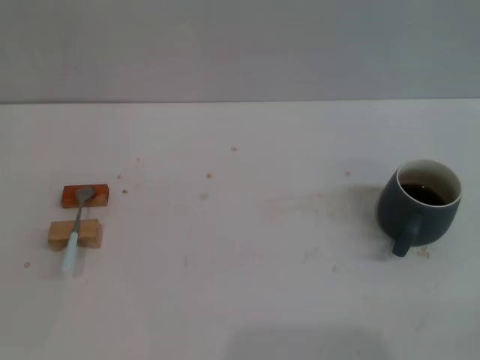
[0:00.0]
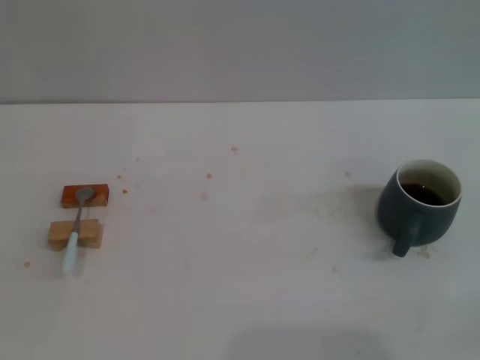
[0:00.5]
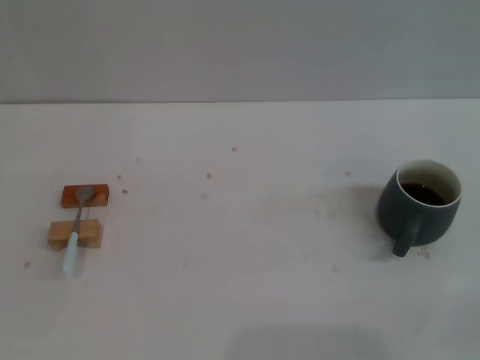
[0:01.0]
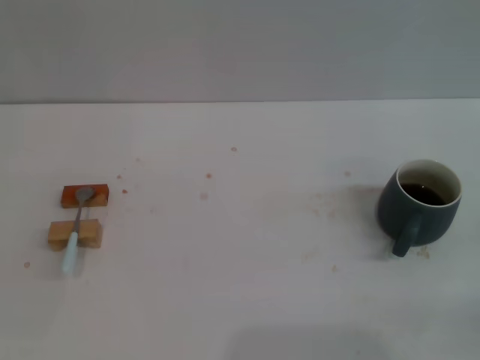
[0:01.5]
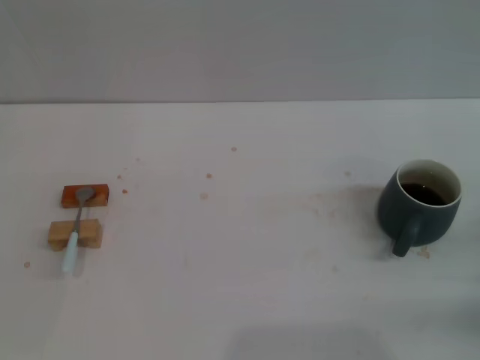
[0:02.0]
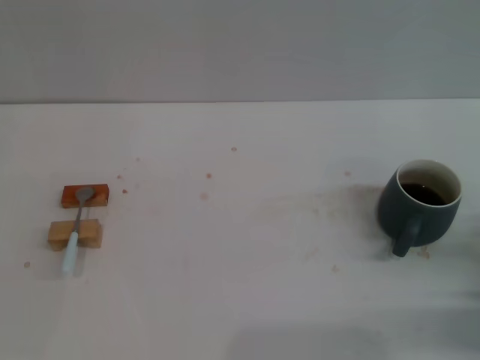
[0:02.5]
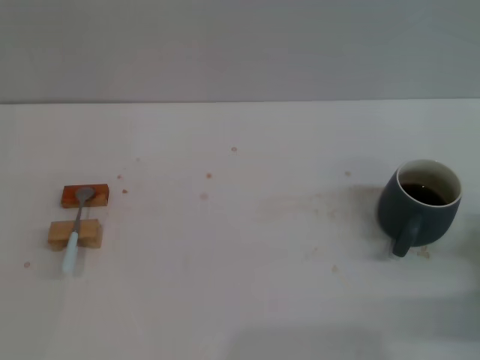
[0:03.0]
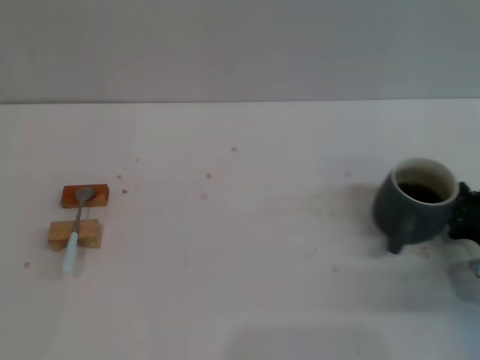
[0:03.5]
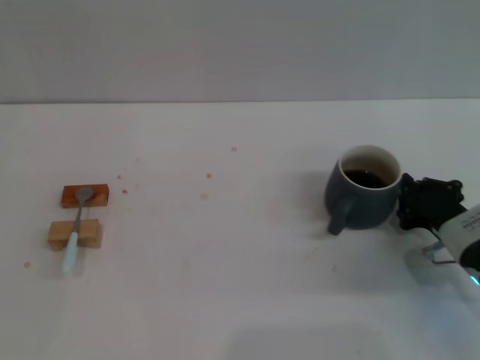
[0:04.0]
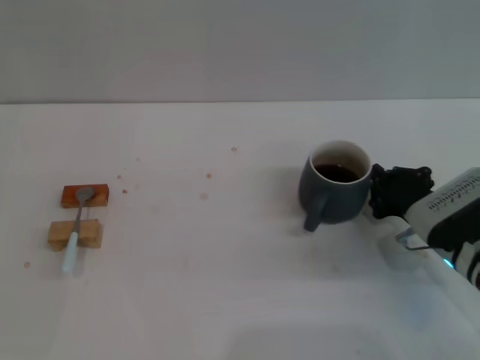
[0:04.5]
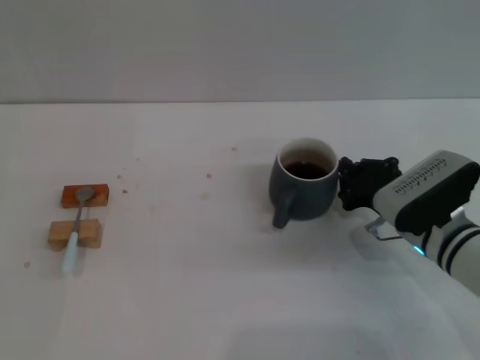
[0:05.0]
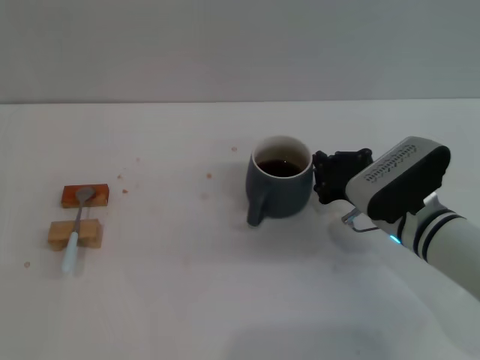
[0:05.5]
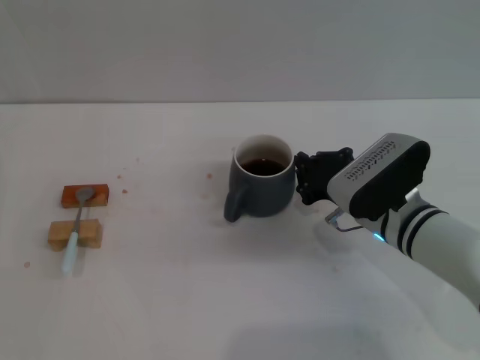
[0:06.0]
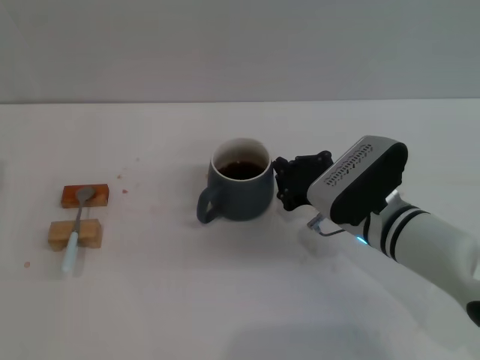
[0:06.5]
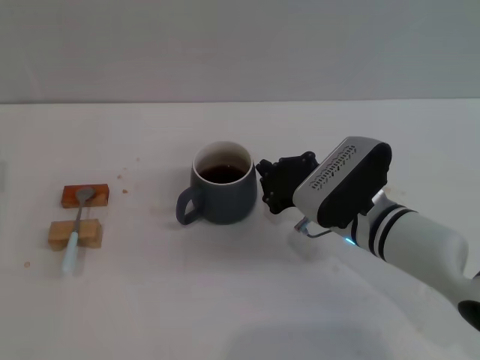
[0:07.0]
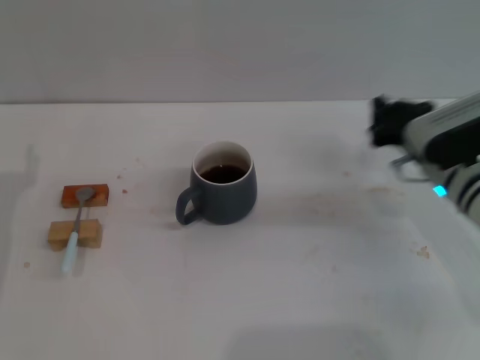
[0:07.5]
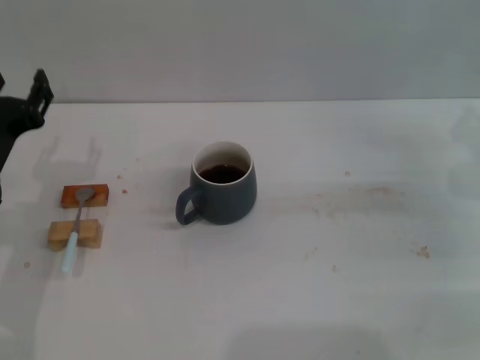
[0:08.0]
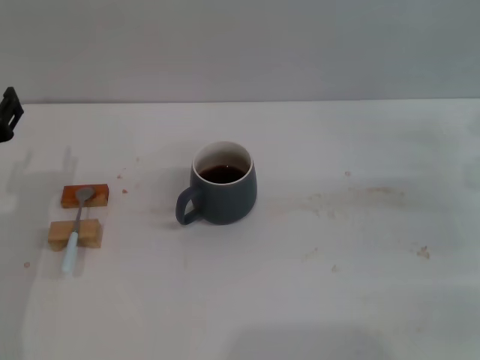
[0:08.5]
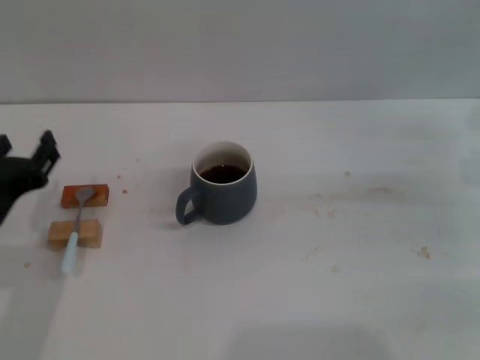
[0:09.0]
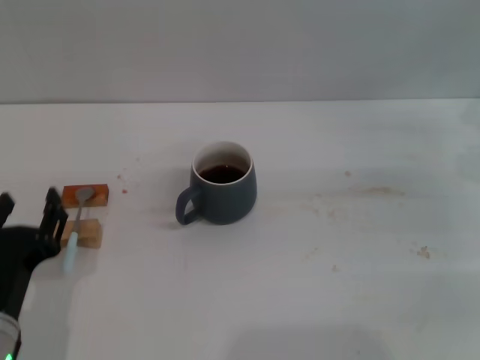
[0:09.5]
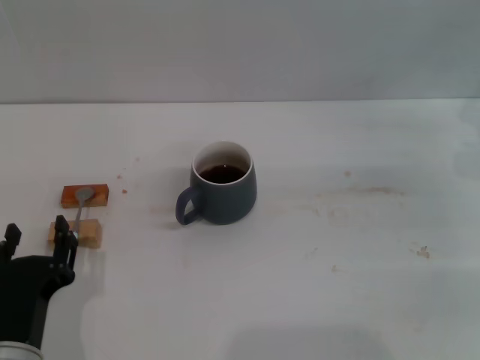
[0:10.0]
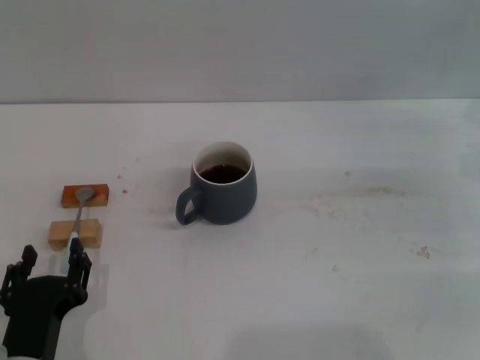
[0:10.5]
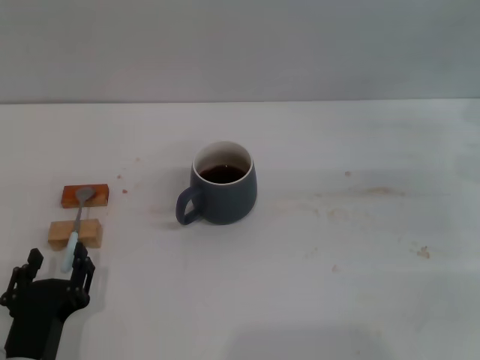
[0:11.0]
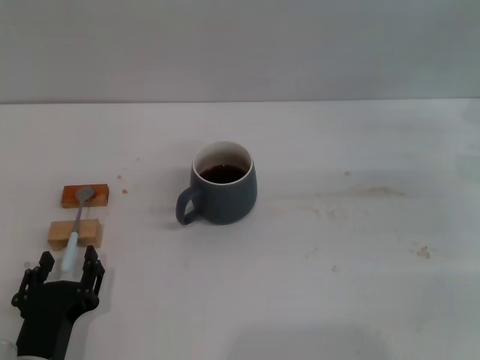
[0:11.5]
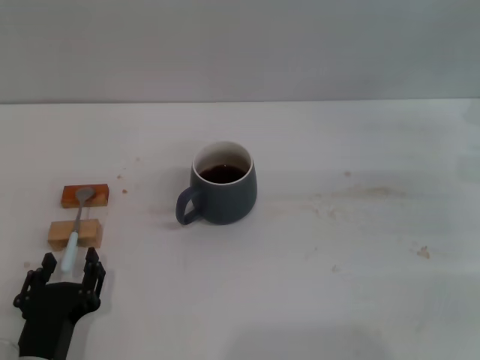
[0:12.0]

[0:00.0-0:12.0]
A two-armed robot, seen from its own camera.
Task of the whole recording: Move the grey cup to the center, lift the blue spoon, stir it three times in the cup, and put the spoon into the cup.
Step, 0:00.0 to 0:07.0: Move the cup with coffee to the center of view with the right gripper.
0:02.0 to 0:04.0: The right gripper shifts some 10 cm to the left and forward.
0:04.0 to 0:06.0: The right gripper heads to the left, covering some 10 cm.
0:06.0 to 0:08.0: The right gripper heads to the right, covering some 15 cm. The left gripper heads to the right, covering about 10 cm.
0:08.0 to 0:10.0: The left gripper heads backward, to the right and downward, covering some 20 cm.
0:10.0 to 0:12.0: The grippers make only small movements.

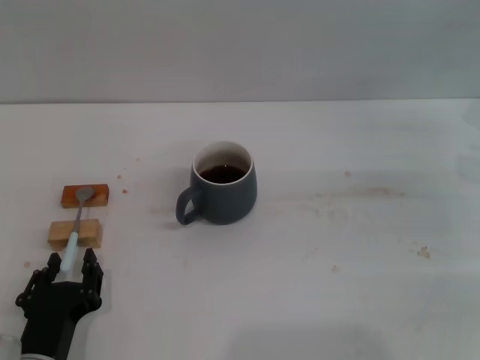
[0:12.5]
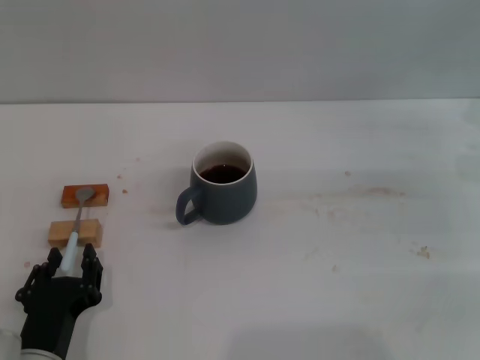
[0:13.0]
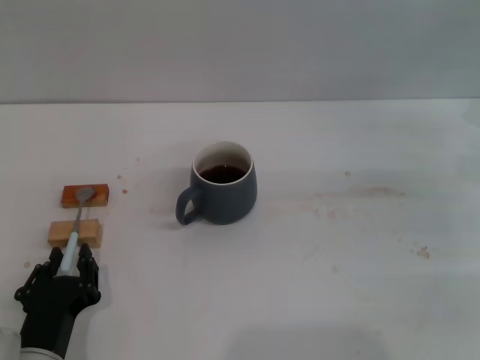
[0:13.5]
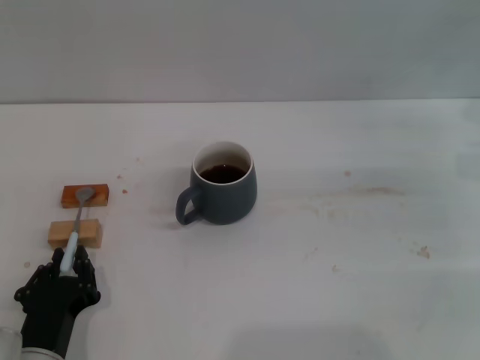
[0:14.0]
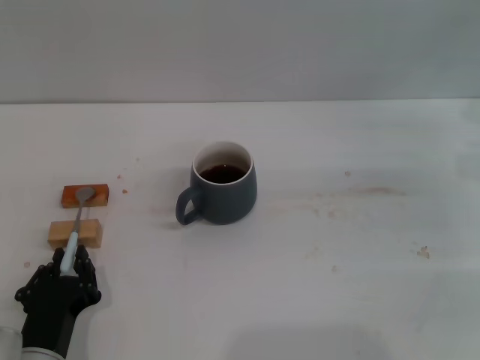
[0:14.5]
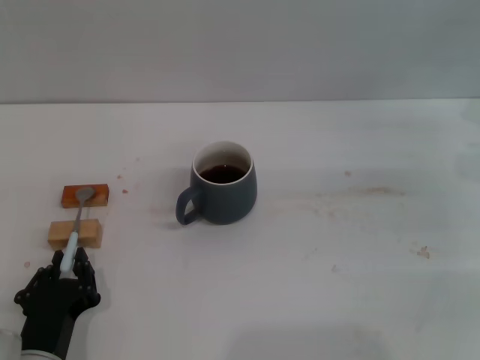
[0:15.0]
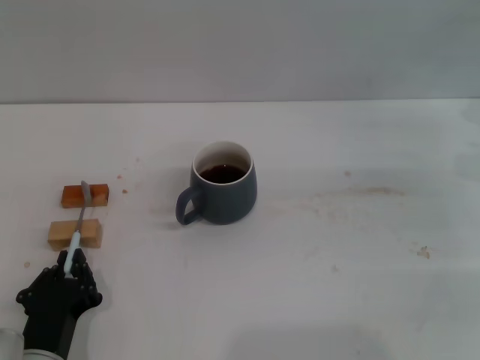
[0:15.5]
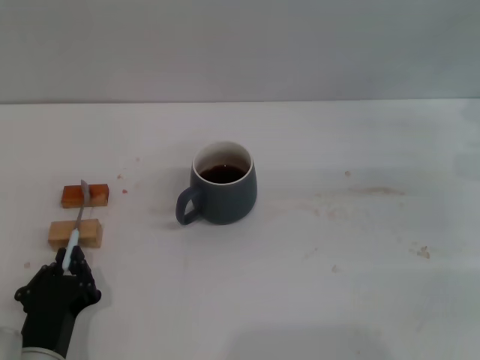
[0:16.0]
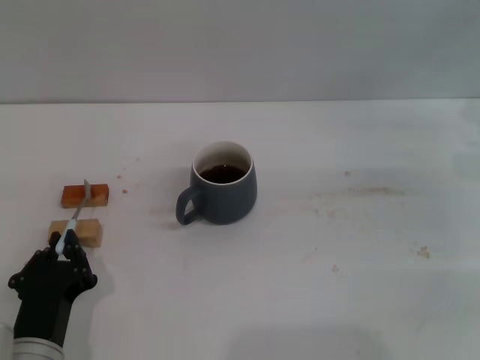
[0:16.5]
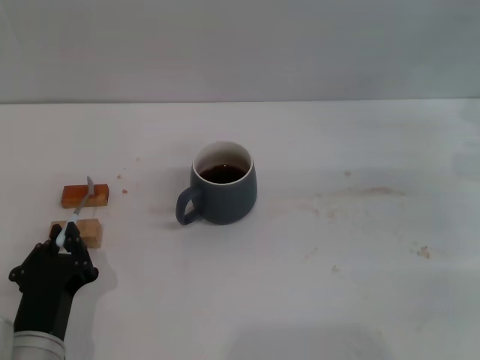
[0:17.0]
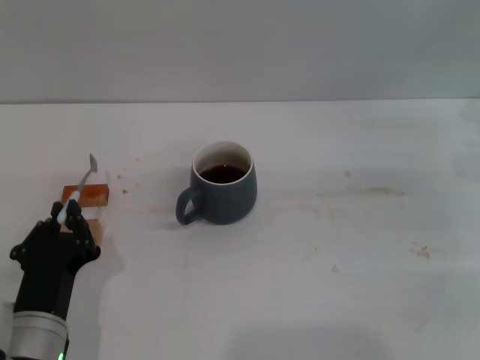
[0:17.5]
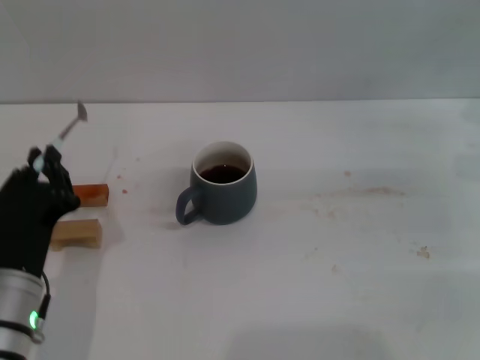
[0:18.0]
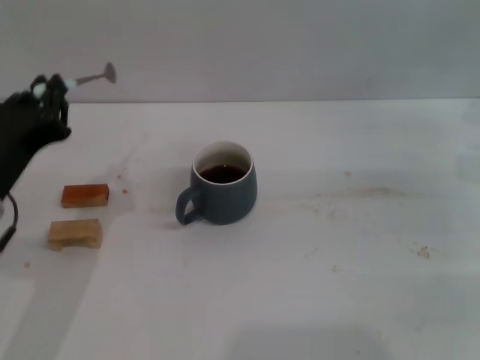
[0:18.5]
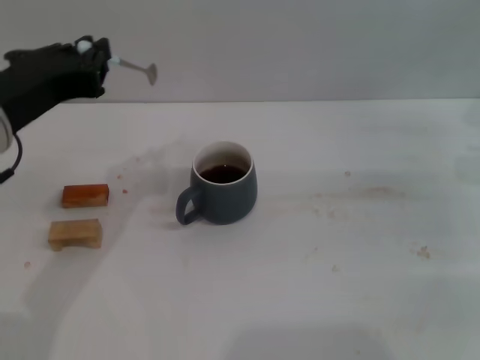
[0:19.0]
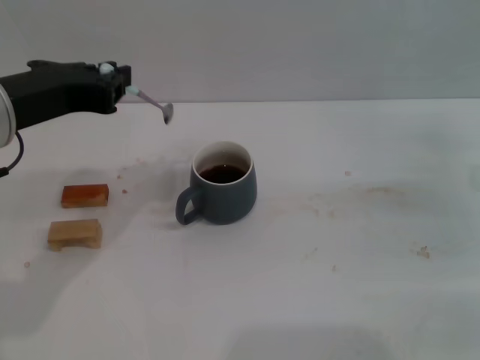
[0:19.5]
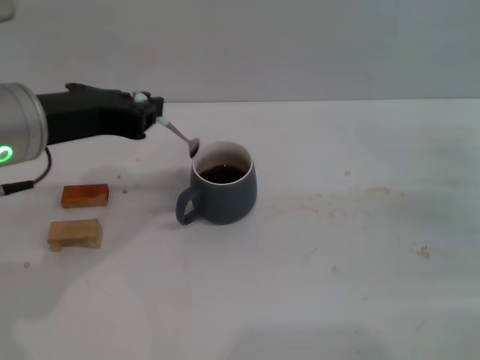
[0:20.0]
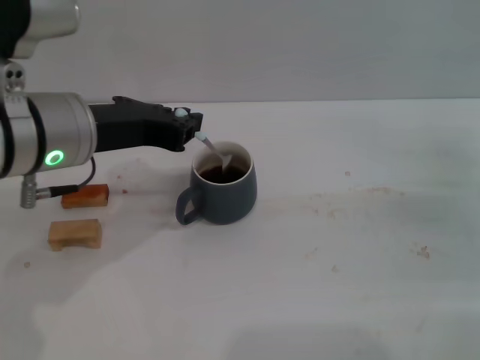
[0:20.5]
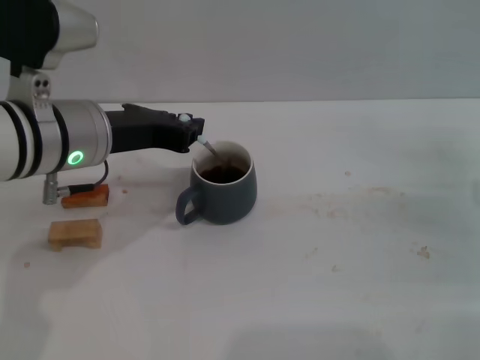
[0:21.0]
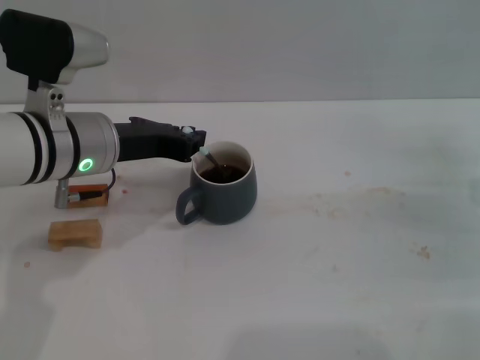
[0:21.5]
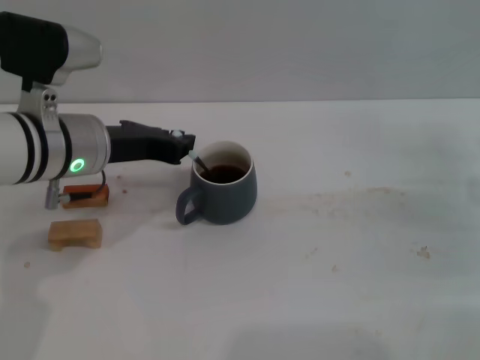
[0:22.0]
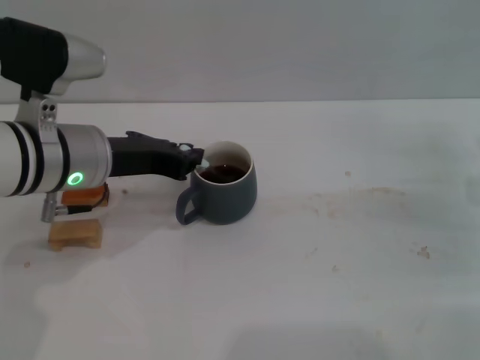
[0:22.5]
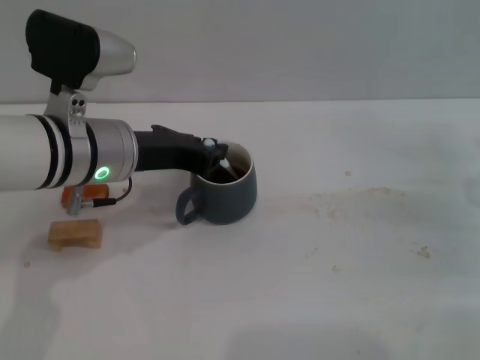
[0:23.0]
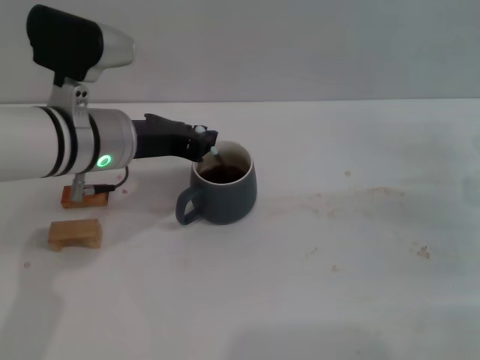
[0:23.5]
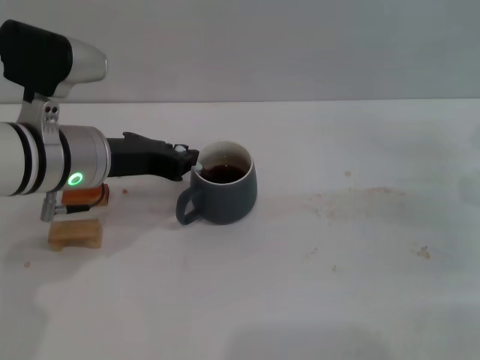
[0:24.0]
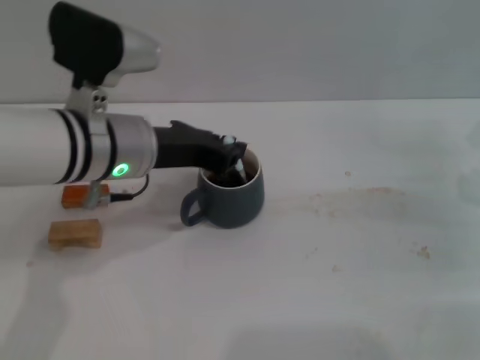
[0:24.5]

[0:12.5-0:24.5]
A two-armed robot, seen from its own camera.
Task of the whole recording: Move the grey cup to the center, lift the blue spoon, stir it three times in the cup, and put the spoon into the cup.
Step, 0:12.5 to 0:17.5: Pick up the spoon with the left gripper.
0:12.5 to 0:14.5: The left gripper closes.
0:14.5 to 0:16.5: Neither gripper changes place.
0:16.5 to 0:18.5: The left gripper heads upward and forward, covering some 15 cm.
0:18.5 to 0:20.5: The left gripper is displaced forward, upward and to the right by roughly 10 cm. The right gripper moves roughly 5 cm.
0:20.5 to 0:22.5: The left gripper travels downward by about 5 cm.
0:22.5 to 0:24.5: The grippers move only a little.

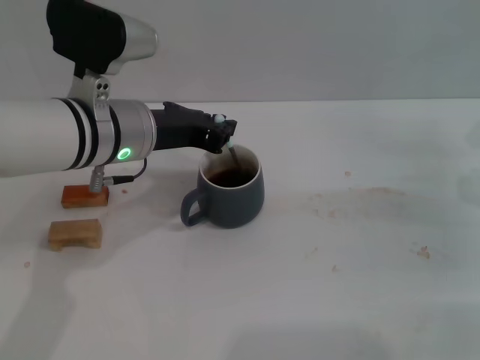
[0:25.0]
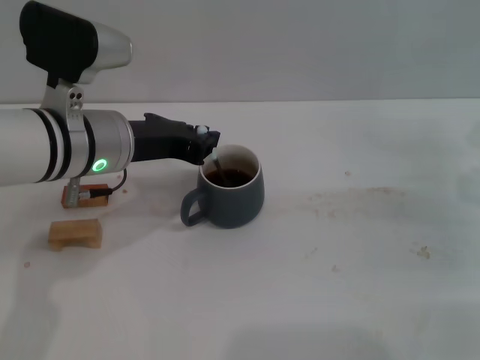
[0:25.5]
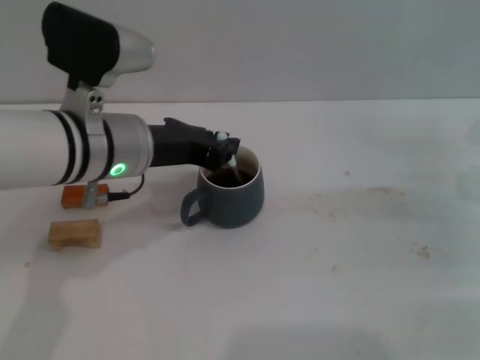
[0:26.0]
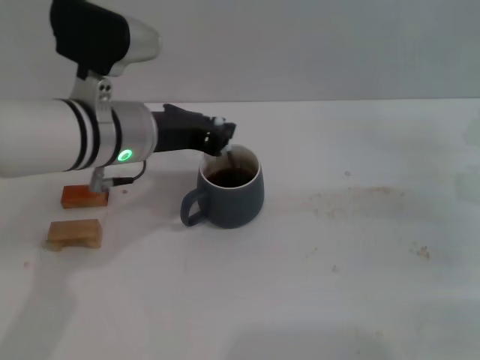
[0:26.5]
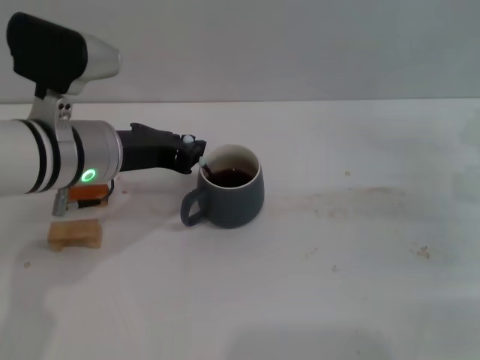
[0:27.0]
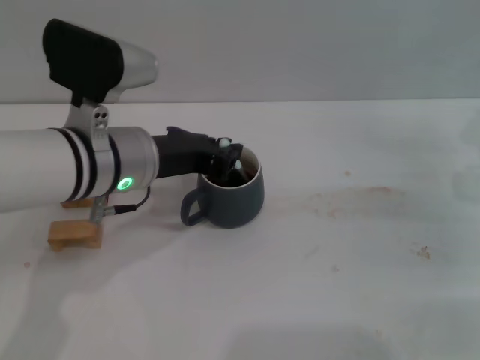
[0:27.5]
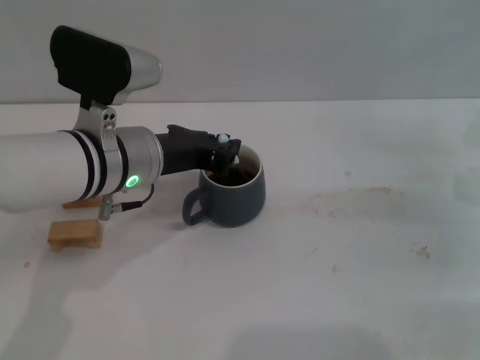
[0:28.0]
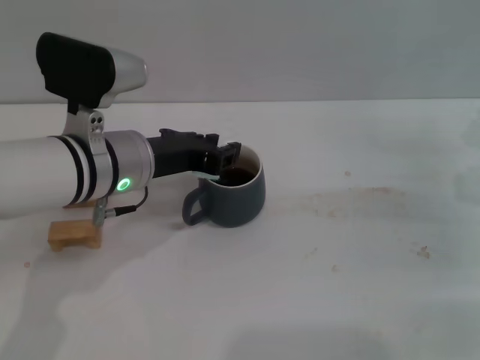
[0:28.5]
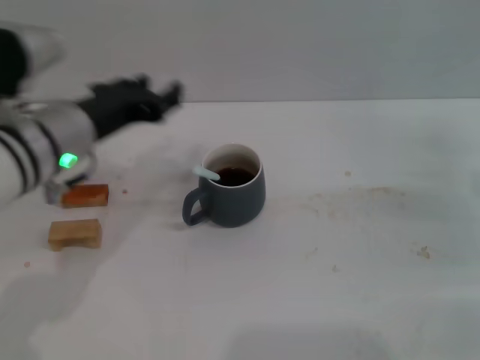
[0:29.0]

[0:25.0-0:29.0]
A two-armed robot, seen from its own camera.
Task of the whole recording: Move the grey cup to the center, lift the blue spoon, stir it three times in the cup, and put the spoon into the cup.
Step, 0:25.0 to 0:28.5: Stir the coffee in the cup with the left gripper.
0:25.0 to 0:27.0: The grippers move only a little.
0:27.0 to 0:29.0: The left gripper opens its fingers.
